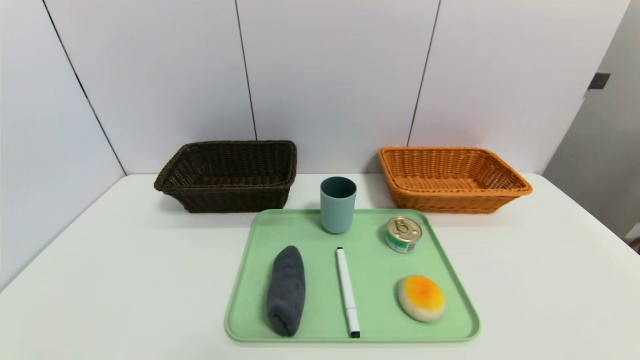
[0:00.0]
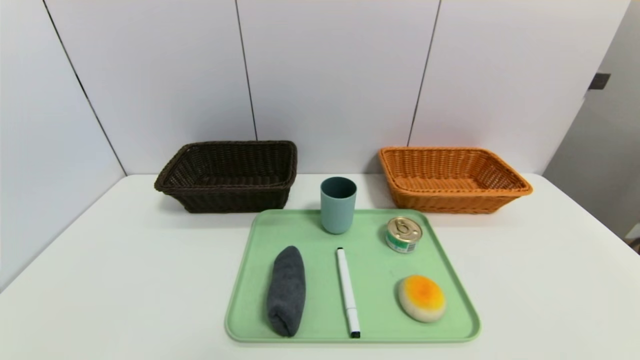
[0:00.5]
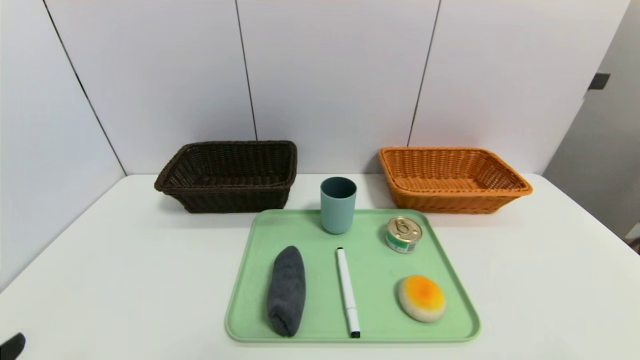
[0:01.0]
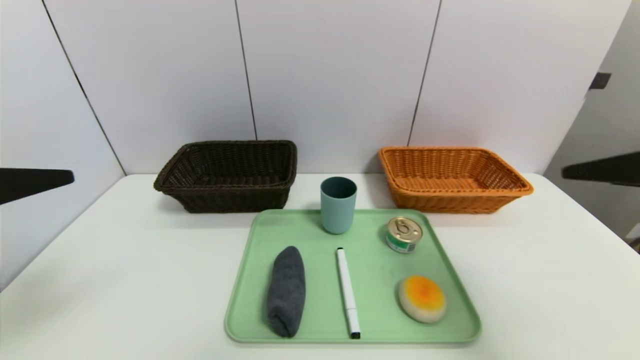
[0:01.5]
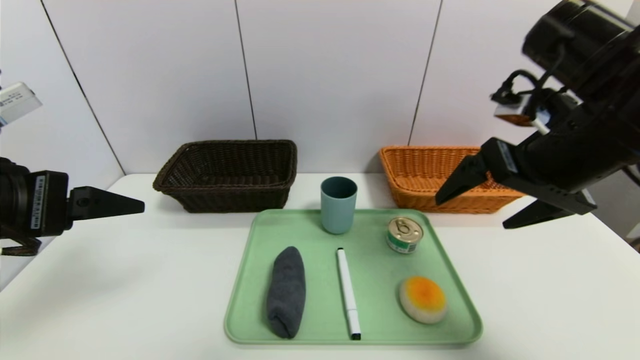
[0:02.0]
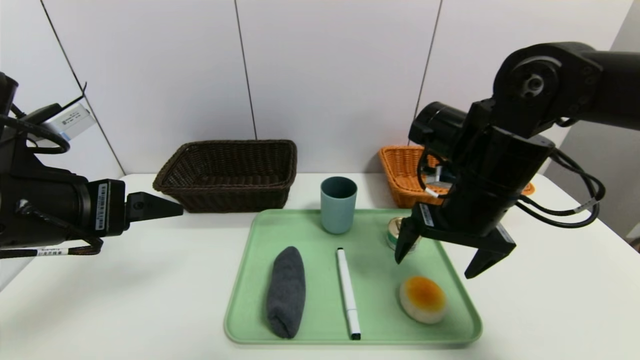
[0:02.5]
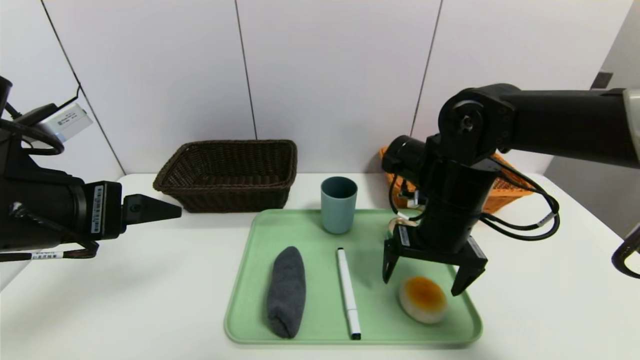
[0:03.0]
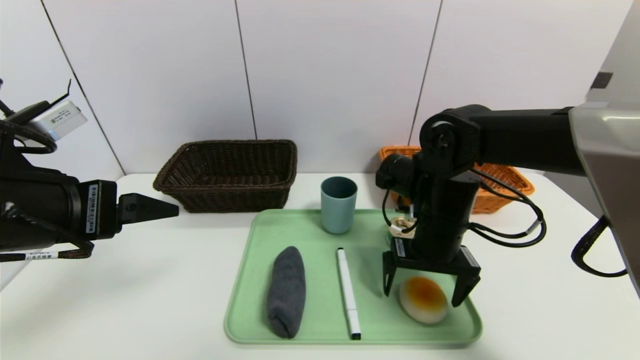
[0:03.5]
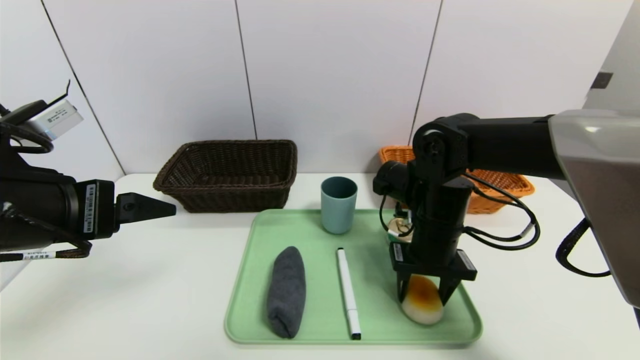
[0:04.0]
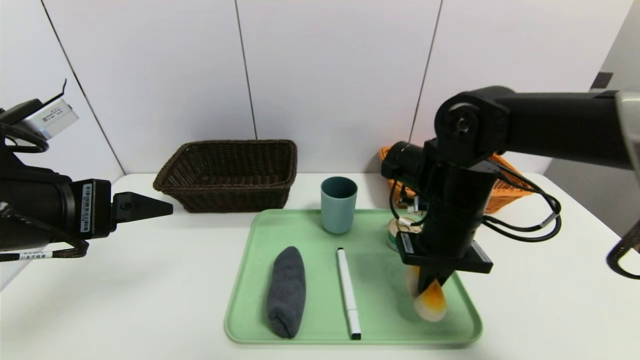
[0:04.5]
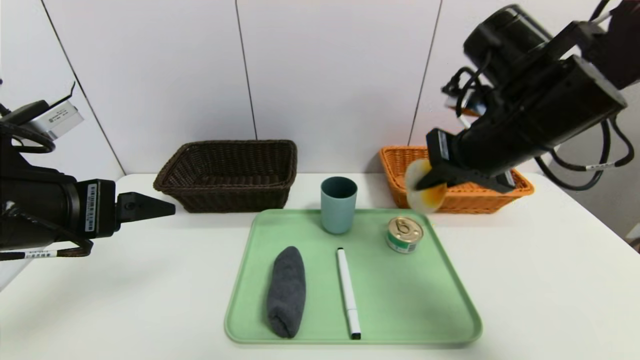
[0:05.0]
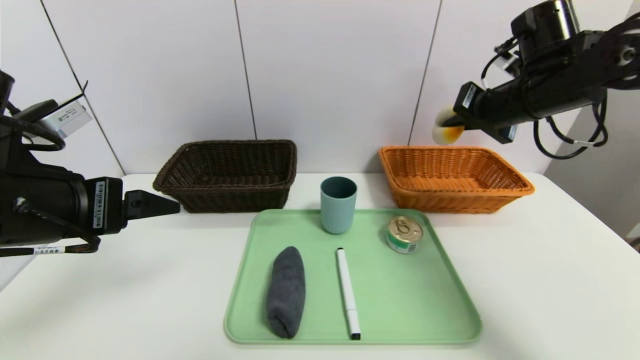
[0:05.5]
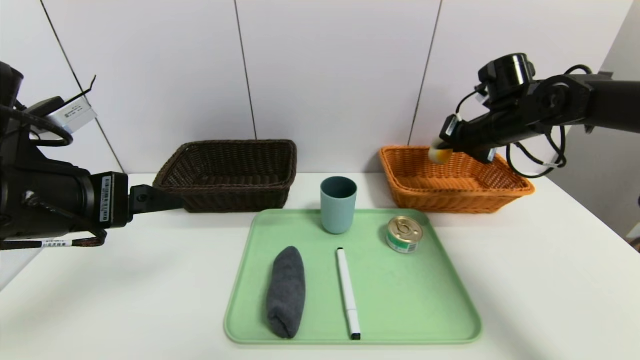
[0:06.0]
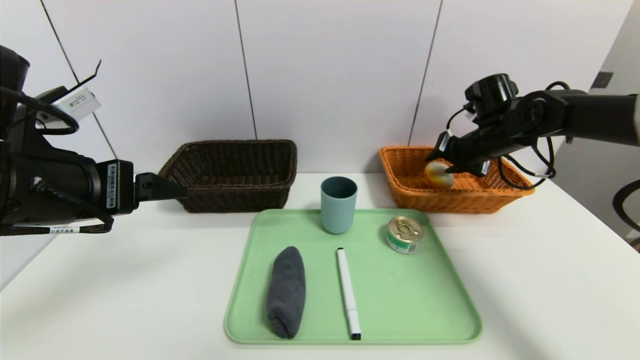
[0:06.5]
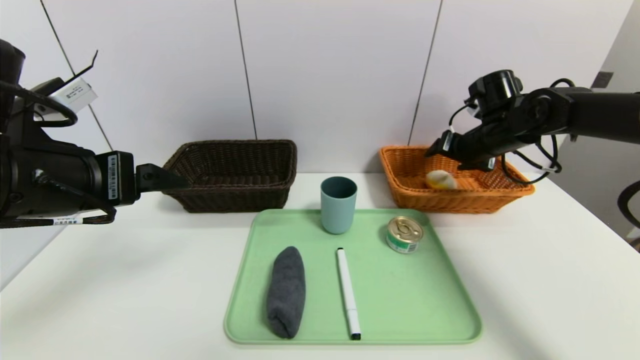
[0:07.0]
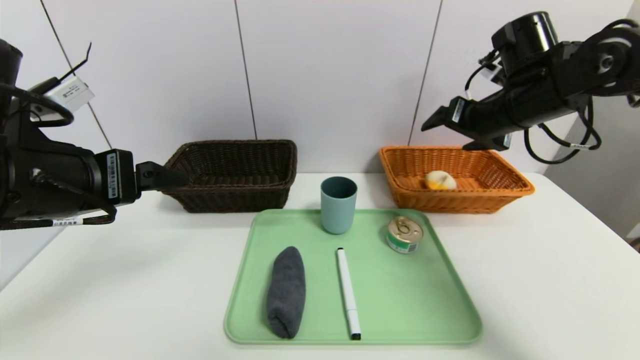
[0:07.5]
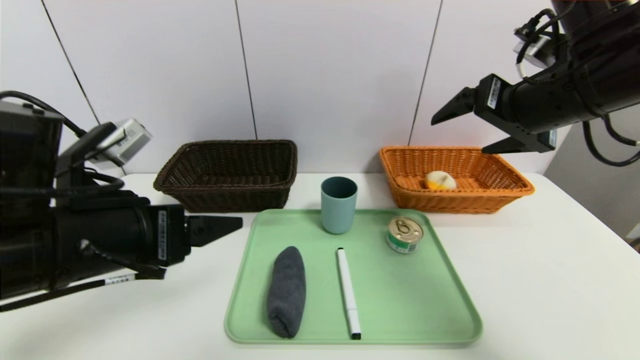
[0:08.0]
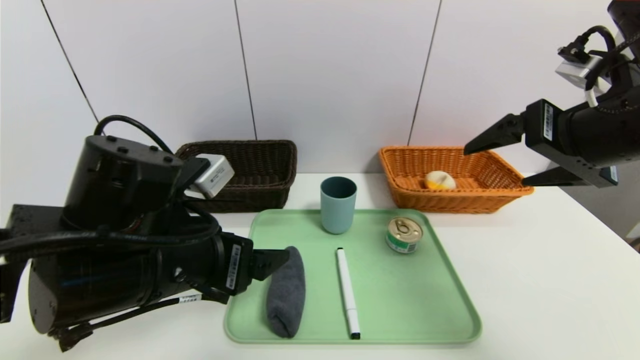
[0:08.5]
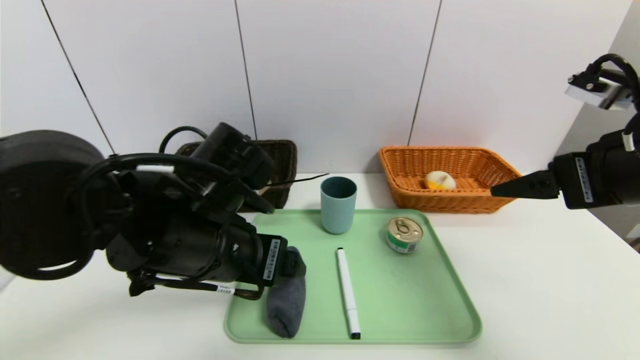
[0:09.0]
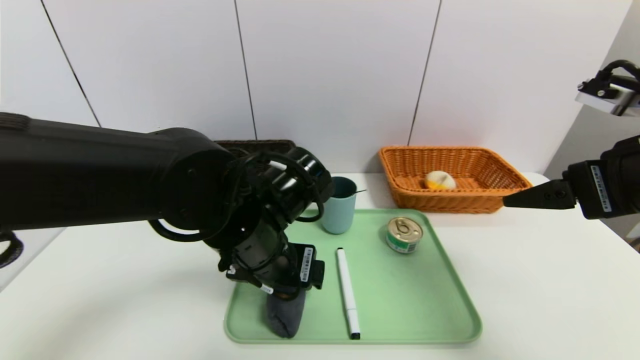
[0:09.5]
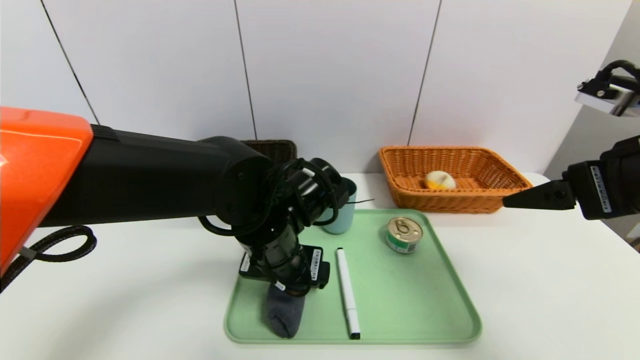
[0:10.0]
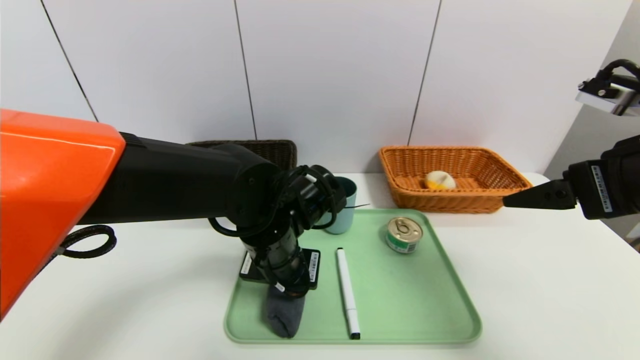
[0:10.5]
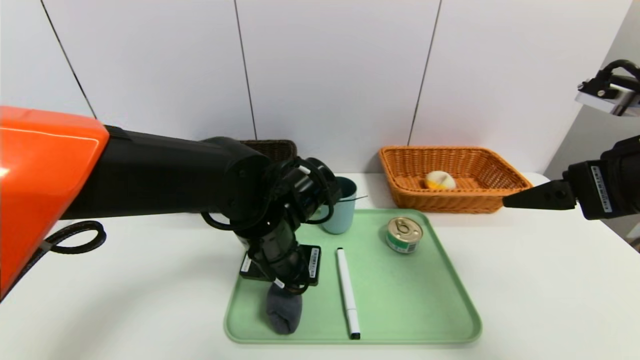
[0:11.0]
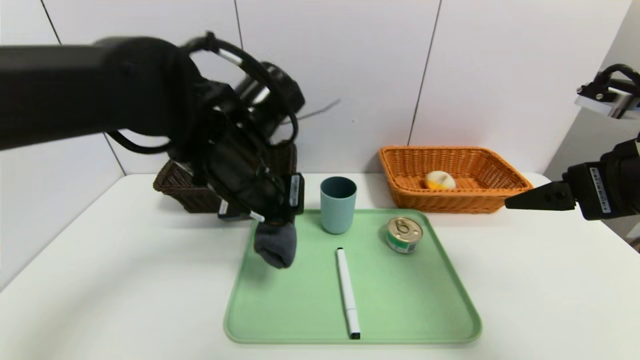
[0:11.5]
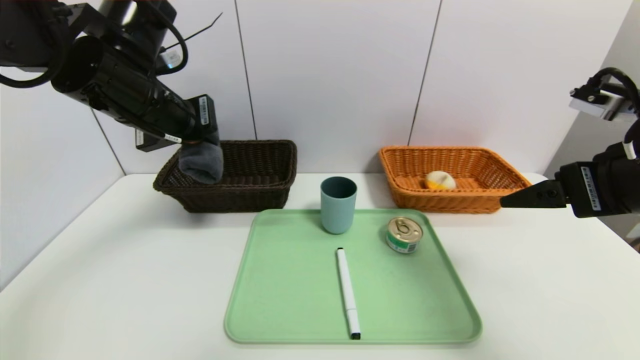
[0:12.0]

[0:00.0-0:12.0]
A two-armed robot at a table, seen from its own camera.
Task of the whole recording: place the food in the right basket with the right gripper, and place the non food items in the left basket with the left gripper.
Step, 0:00.0 to 0:07.0: Grasp the egg yolk pastry and put it in the right basket.
0:00.0 to 0:02.0: The right gripper shifts about 35 cm forward, upward and to the left; the left gripper goes some 30 cm upward and forward.
0:02.0 to 0:04.0: The right gripper travels downward, forward and to the left by approximately 20 cm, and closes.
0:04.0 to 0:06.0: The right gripper heads to the right, forward and upward, covering some 20 cm, and closes up.
0:06.0 to 0:08.0: The left gripper travels to the right by approximately 5 cm. The right gripper travels backward and upward by some 20 cm, and opens up.
0:08.0 to 0:10.0: The right gripper moves backward, some 10 cm; the left gripper is displaced to the right, forward and downward by roughly 20 cm.
0:10.0 to 0:12.0: The left gripper shifts about 20 cm to the left and upward, and closes.

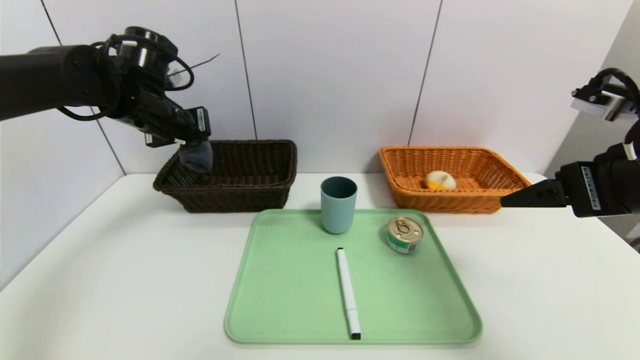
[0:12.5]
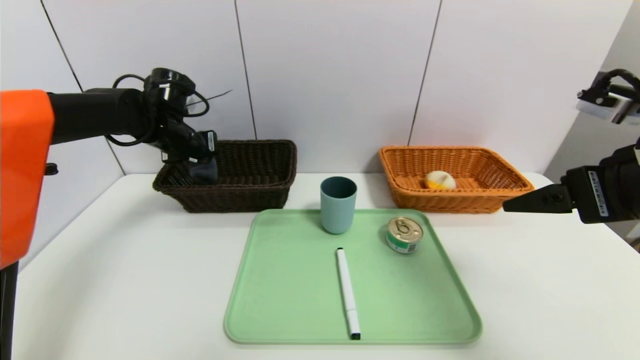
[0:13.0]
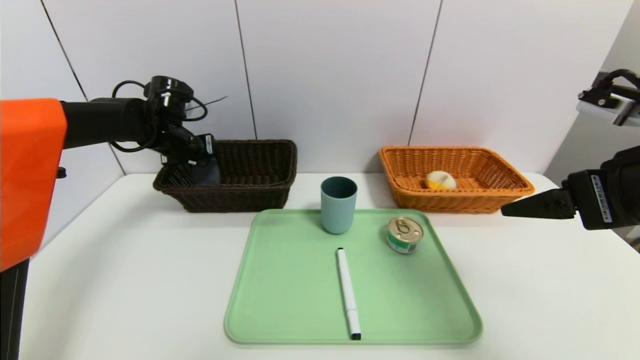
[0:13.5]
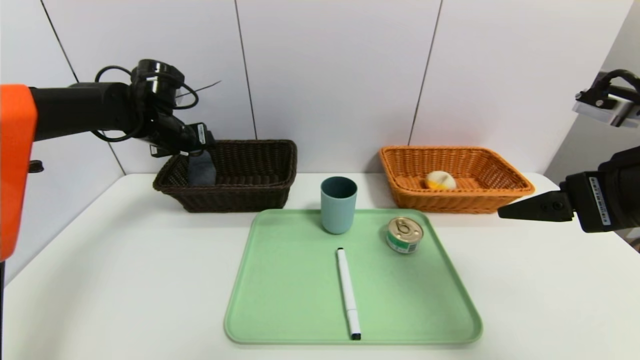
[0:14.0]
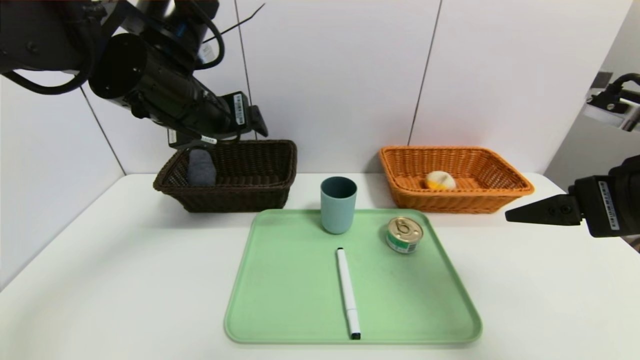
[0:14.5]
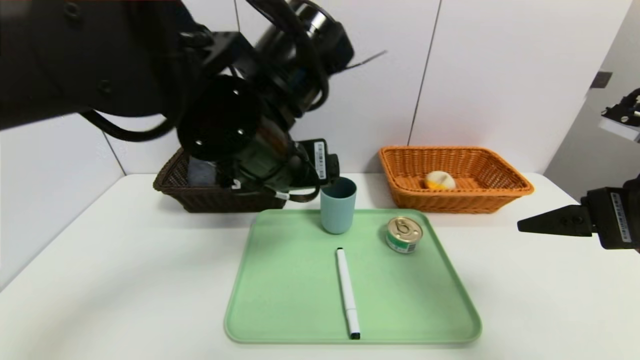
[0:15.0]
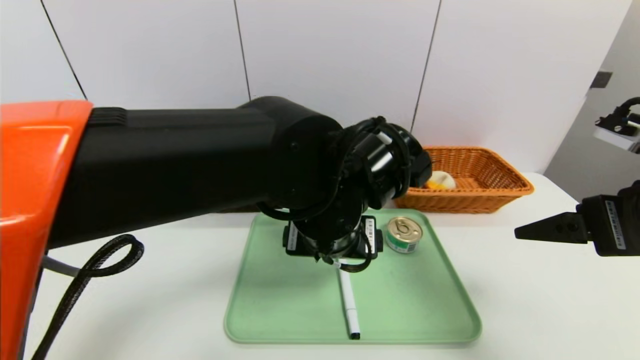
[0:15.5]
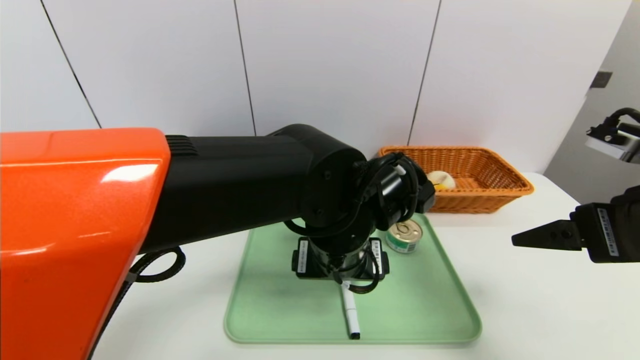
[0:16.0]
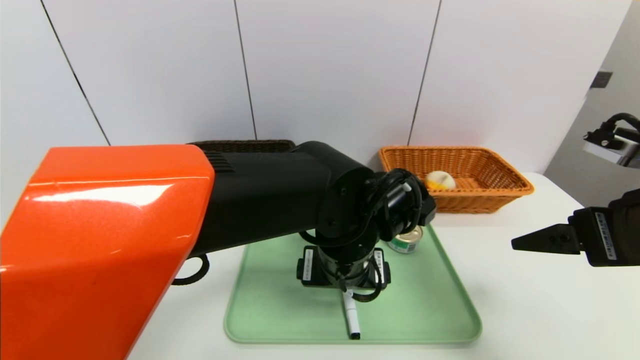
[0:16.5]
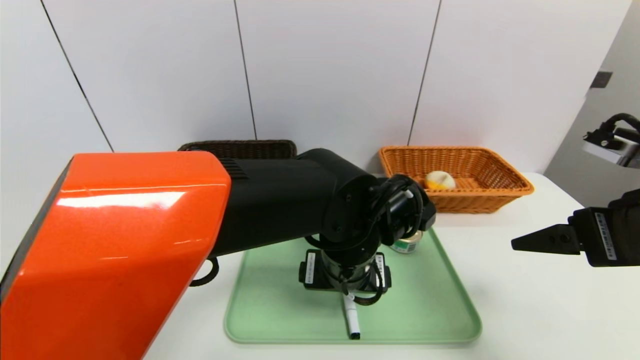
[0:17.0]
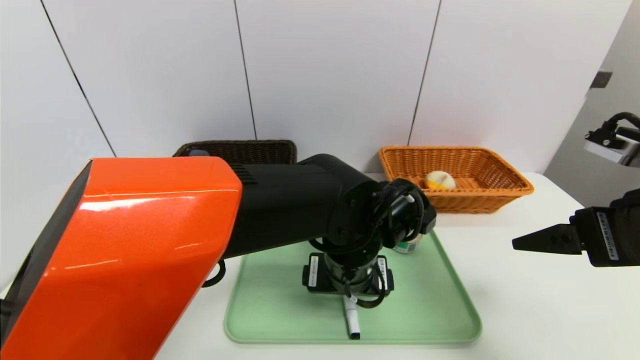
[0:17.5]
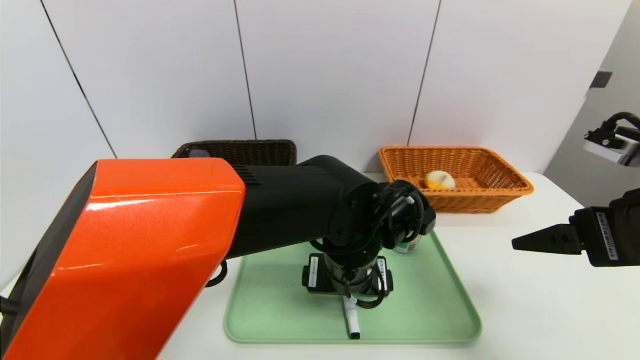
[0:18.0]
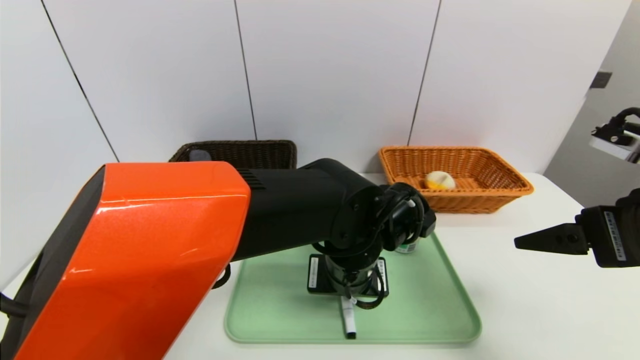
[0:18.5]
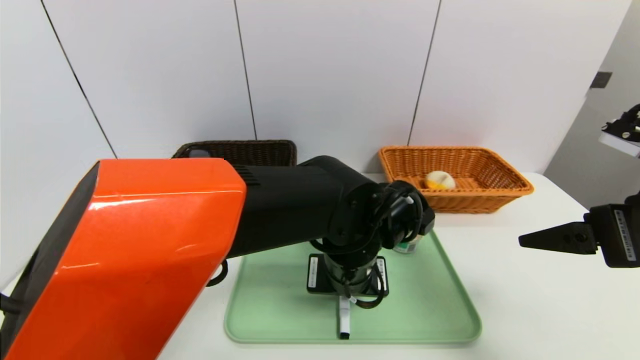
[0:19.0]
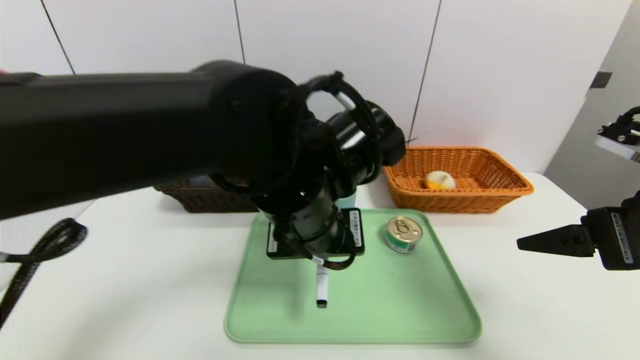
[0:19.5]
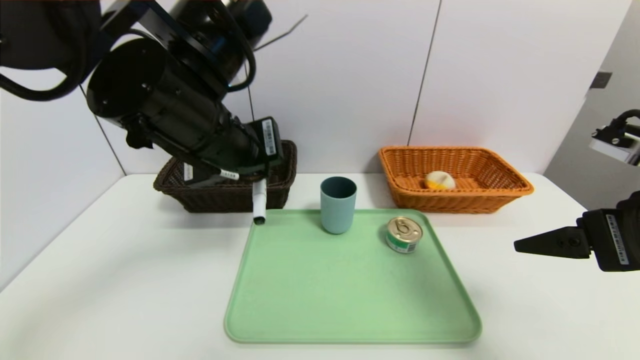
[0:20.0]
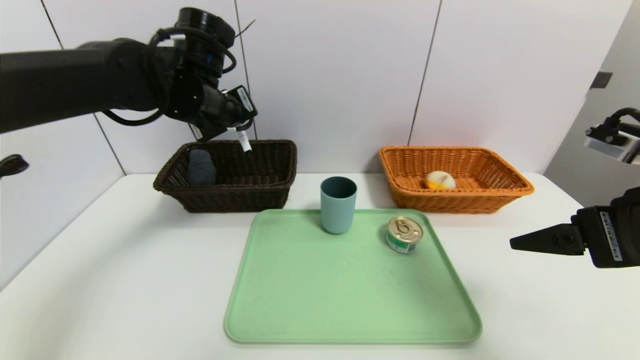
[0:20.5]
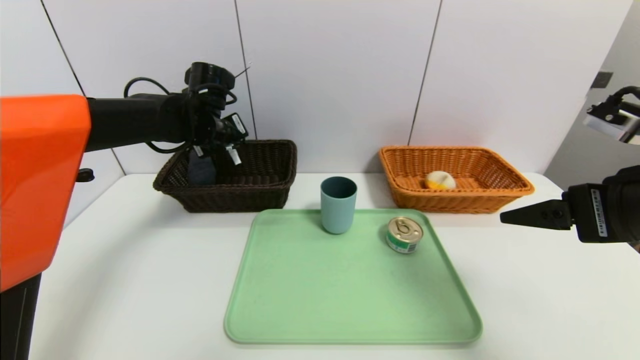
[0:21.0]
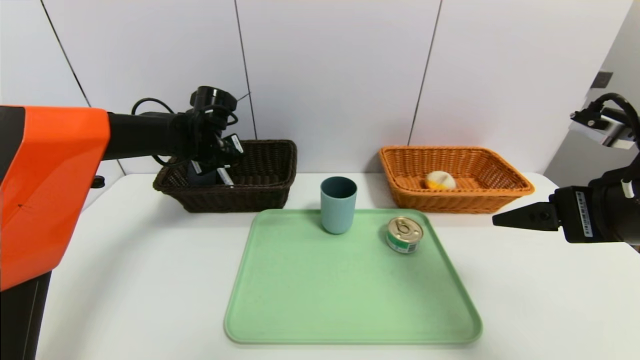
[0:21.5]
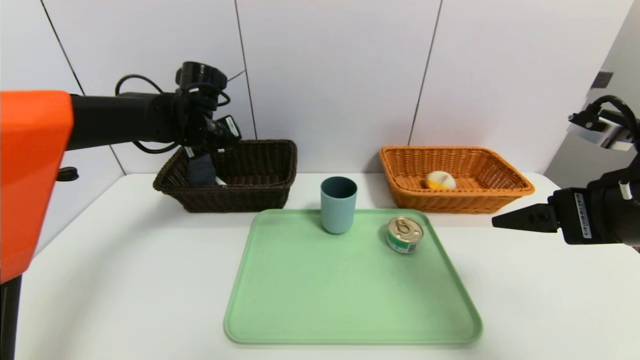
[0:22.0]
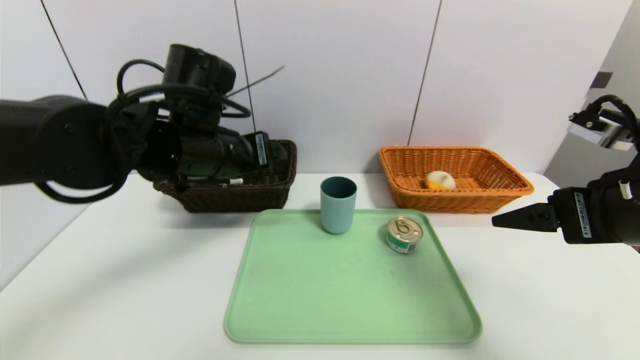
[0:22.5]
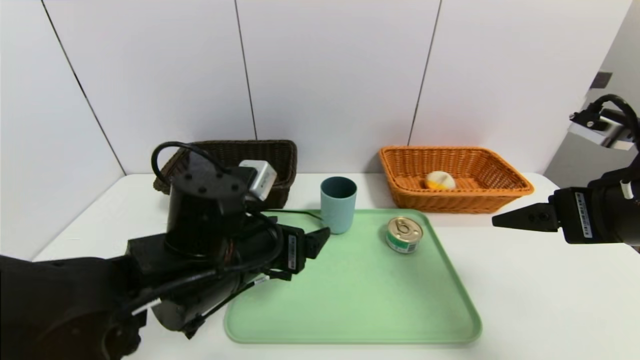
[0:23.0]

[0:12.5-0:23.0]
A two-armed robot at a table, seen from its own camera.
Task of the whole recording: place the food in the right basket with the right gripper, and place the non food items in the left basket with the left gripper.
Step, 0:14.5 to 0:21.5: Grasp the black marker and put it in the left basket.
0:12.5 to 0:14.5: The left gripper goes some 15 cm backward, to the right and upward, and opens up.
0:14.5 to 0:16.5: The left gripper travels to the right and downward by about 25 cm.
0:16.5 to 0:19.0: The left gripper closes.
0:19.0 to 0:21.0: The left gripper travels to the left and forward by about 30 cm.
0:21.0 to 0:23.0: The left gripper heads backward, covering about 25 cm, and opens its fingers.
